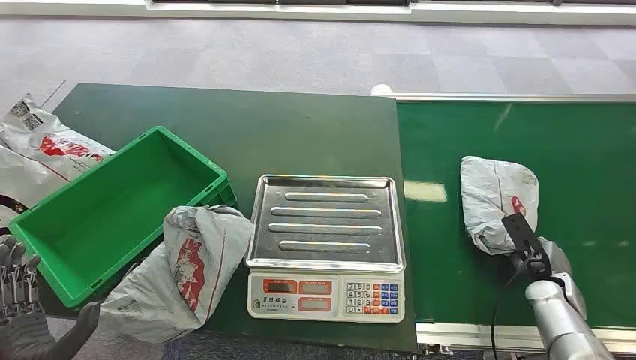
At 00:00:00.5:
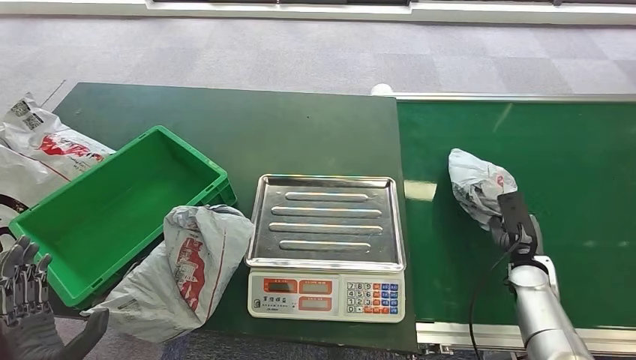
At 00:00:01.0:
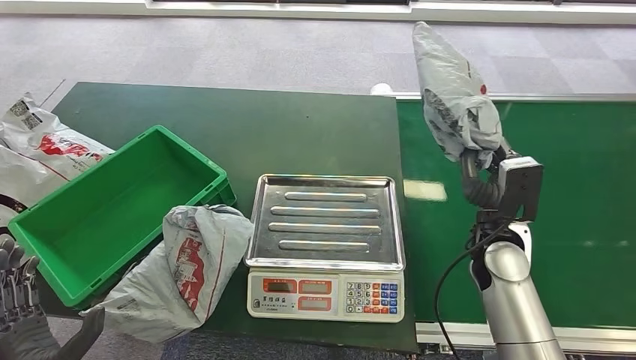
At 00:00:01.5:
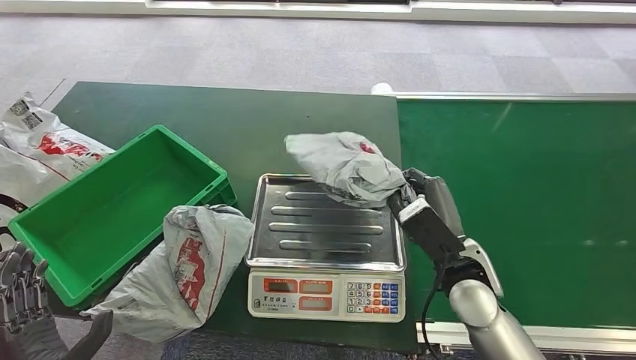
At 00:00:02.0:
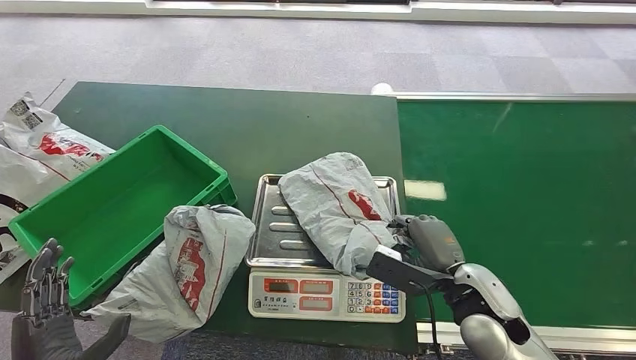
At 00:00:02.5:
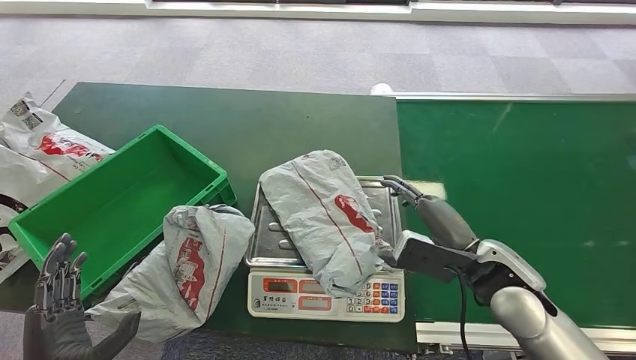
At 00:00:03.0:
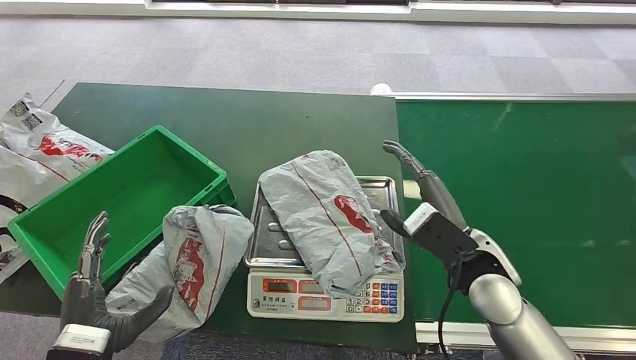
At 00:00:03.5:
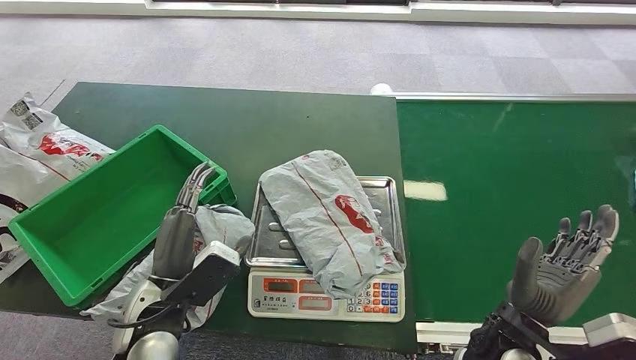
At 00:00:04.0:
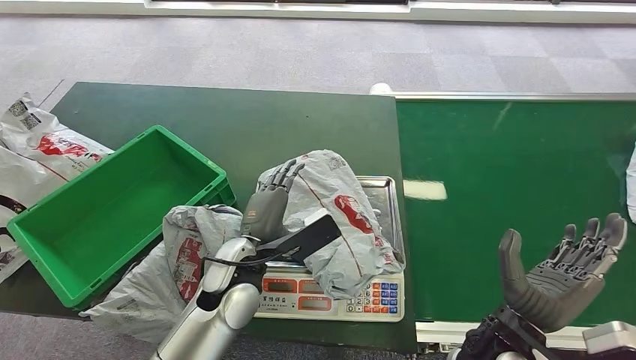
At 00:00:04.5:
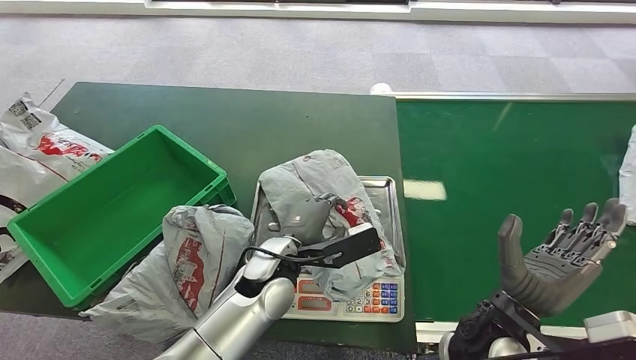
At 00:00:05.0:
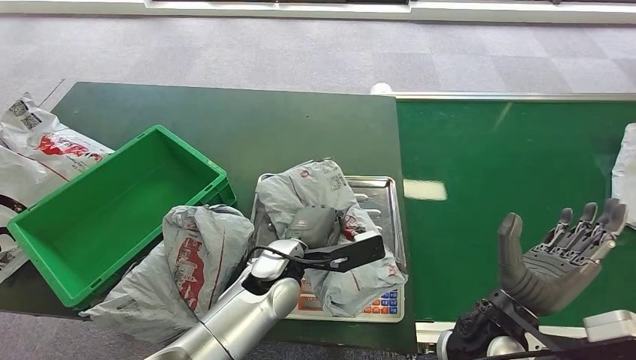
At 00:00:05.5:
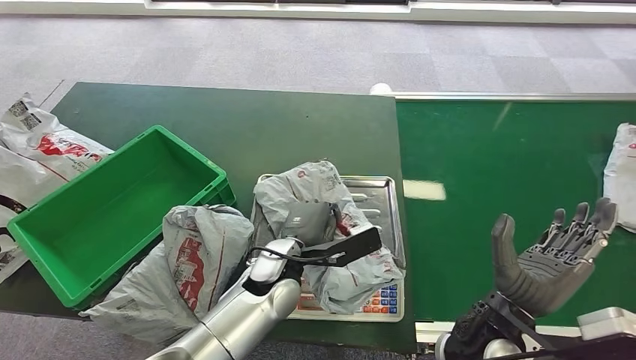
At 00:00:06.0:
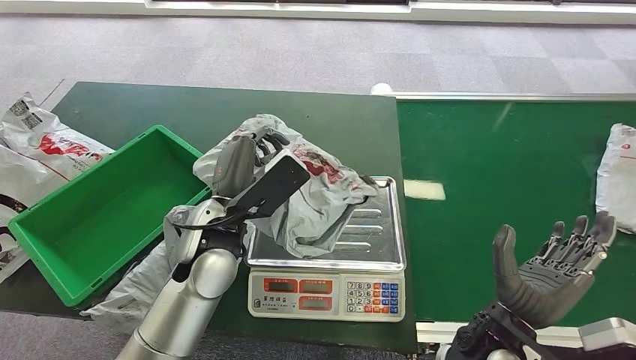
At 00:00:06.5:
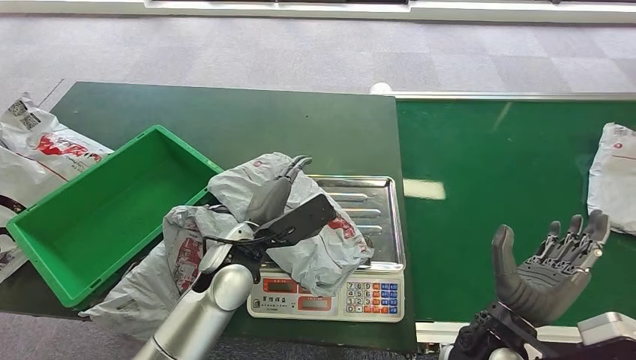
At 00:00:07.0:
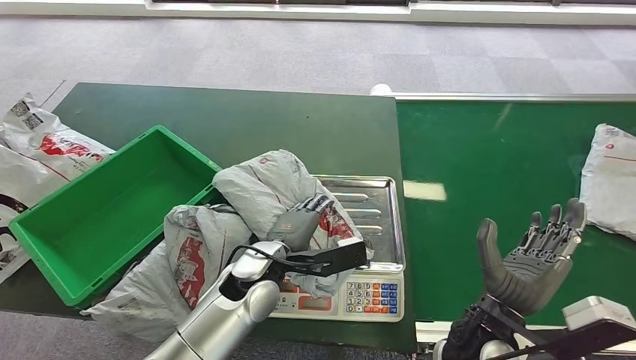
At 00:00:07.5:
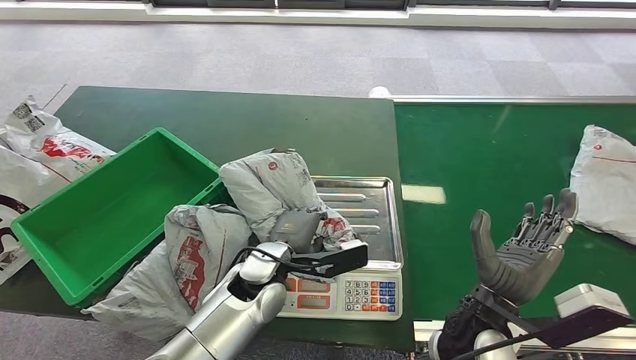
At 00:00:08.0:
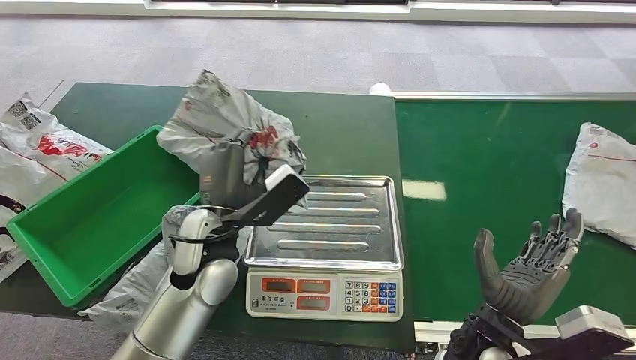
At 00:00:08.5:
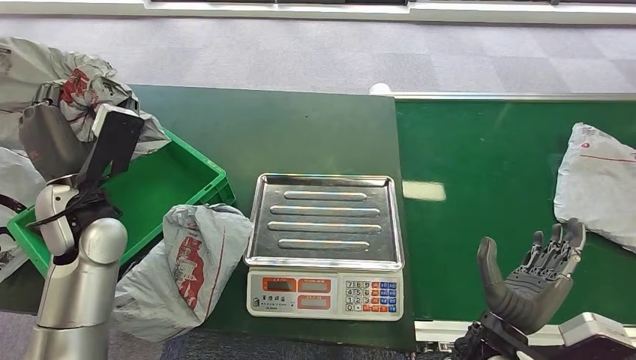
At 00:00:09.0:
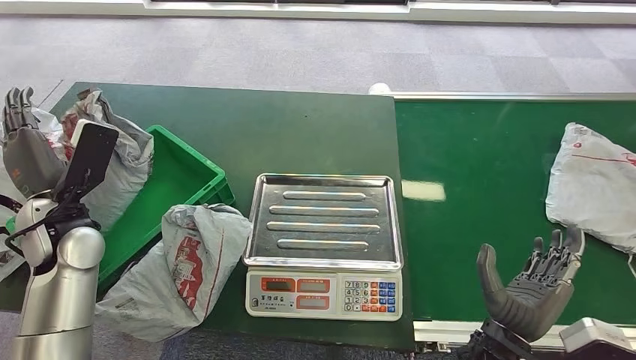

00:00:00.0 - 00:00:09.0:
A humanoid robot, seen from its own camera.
Step, 00:00:00.0 - 00:00:01.0: Pick up the package from the conveyor belt.
Step, 00:00:01.5 - 00:00:02.0: Place the package onto the inbound machine.
Step, 00:00:02.5 - 00:00:06.0: Pick up the package from the inbound machine.
Step, 00:00:06.5 - 00:00:09.0: Place the package into the parcel locker.
00:00:04.5 - 00:00:07.0: The left hand reaches some 10 cm upward, then returns.
